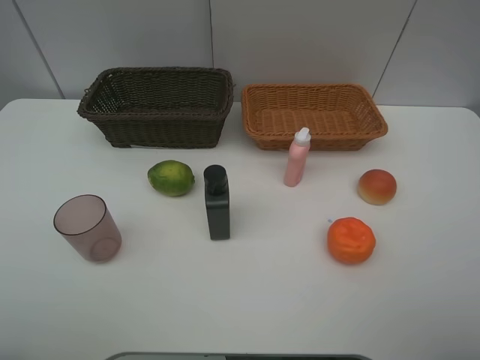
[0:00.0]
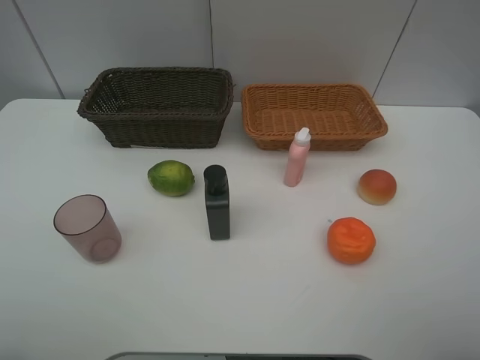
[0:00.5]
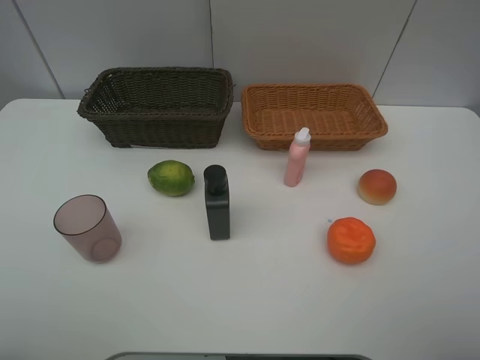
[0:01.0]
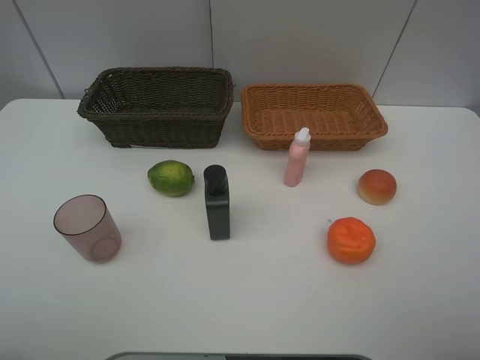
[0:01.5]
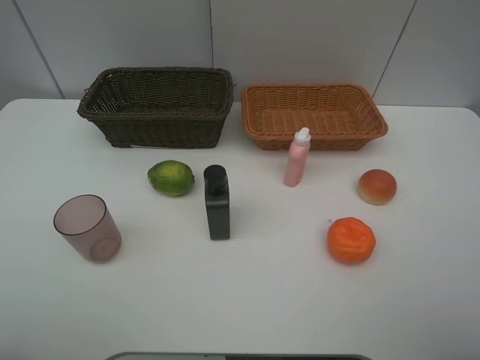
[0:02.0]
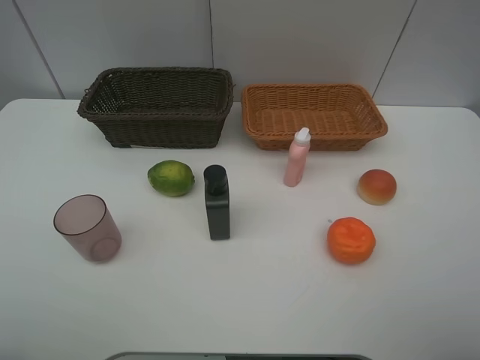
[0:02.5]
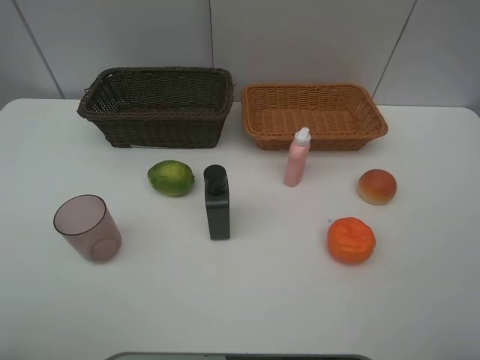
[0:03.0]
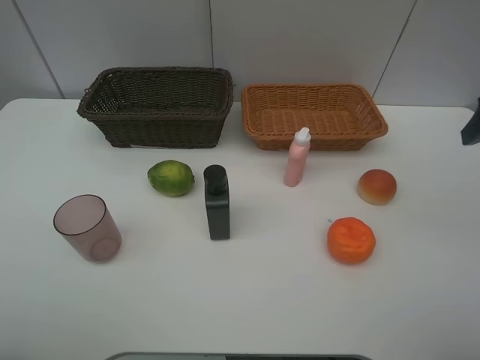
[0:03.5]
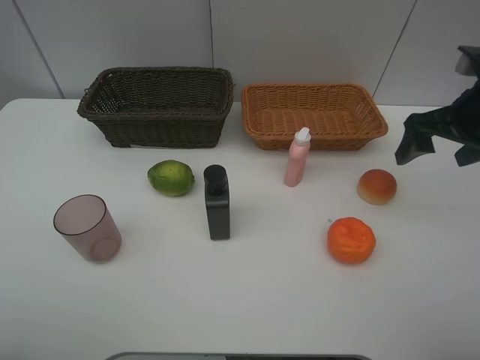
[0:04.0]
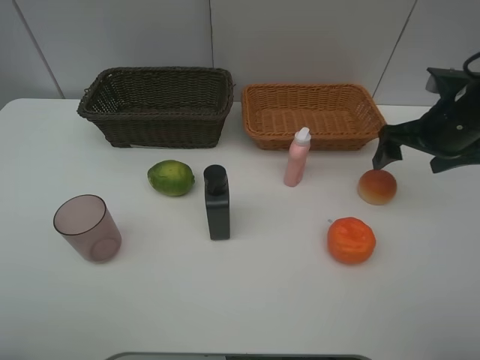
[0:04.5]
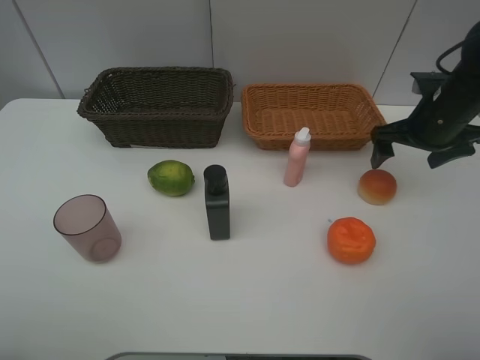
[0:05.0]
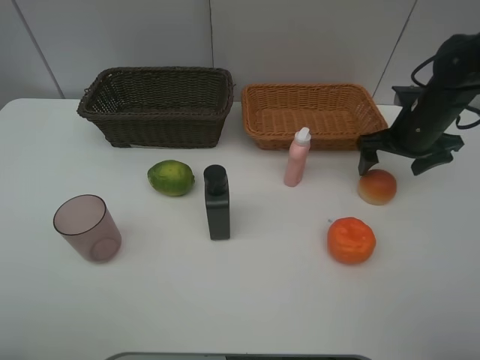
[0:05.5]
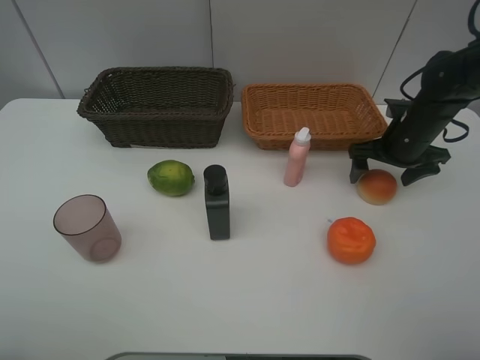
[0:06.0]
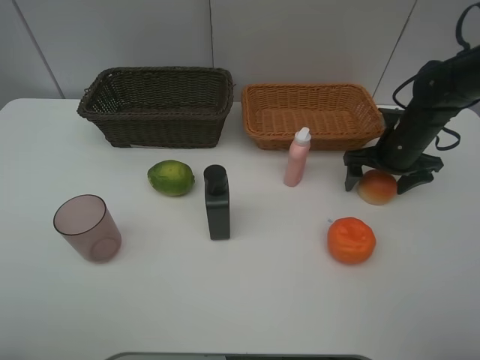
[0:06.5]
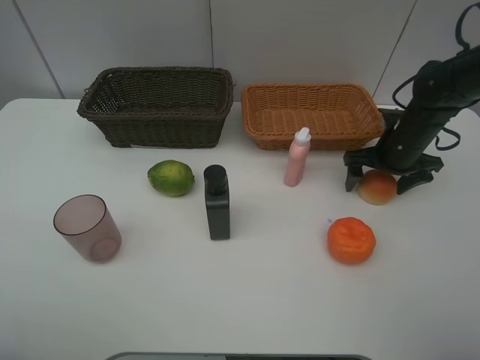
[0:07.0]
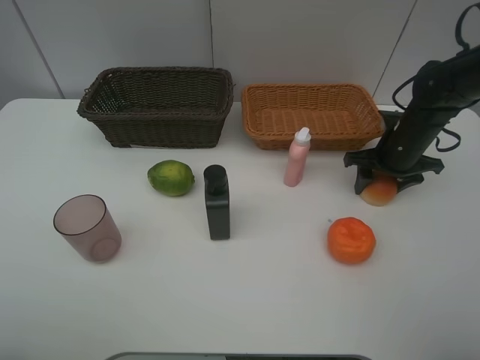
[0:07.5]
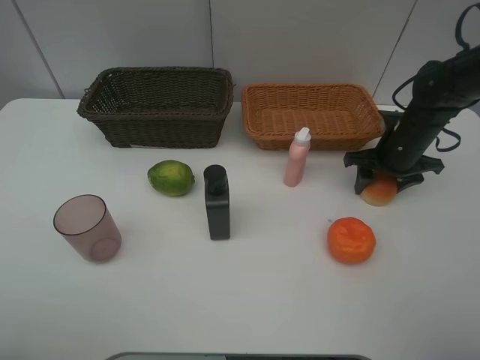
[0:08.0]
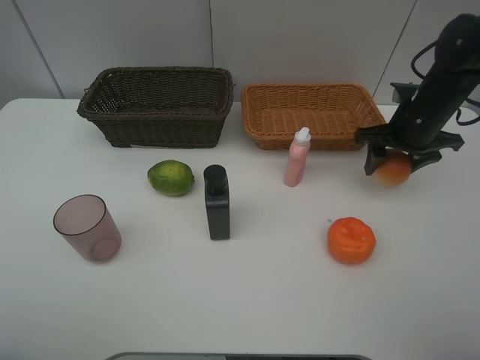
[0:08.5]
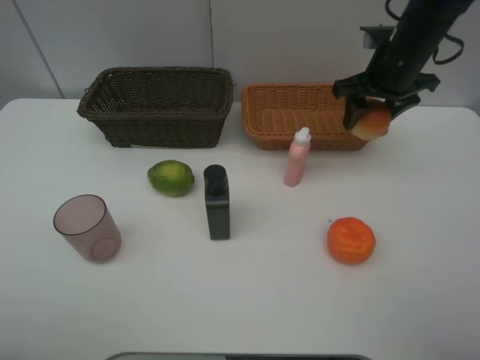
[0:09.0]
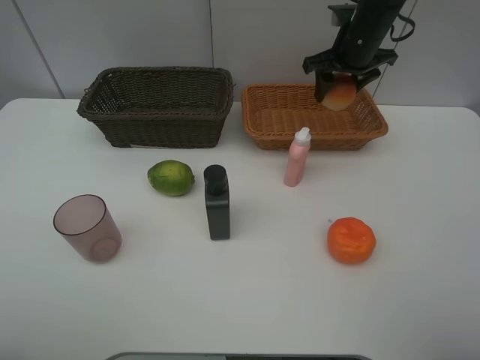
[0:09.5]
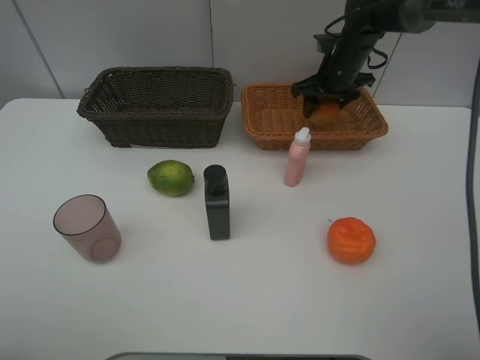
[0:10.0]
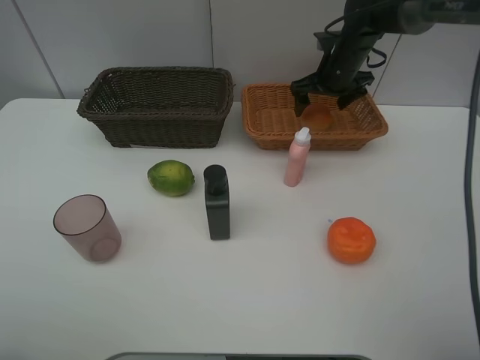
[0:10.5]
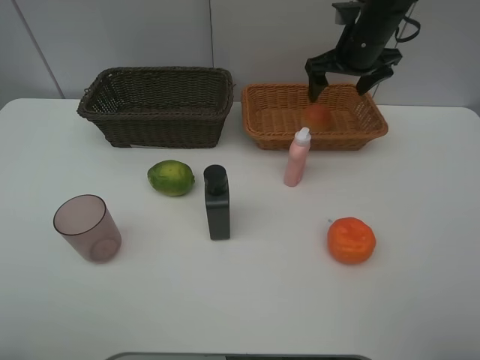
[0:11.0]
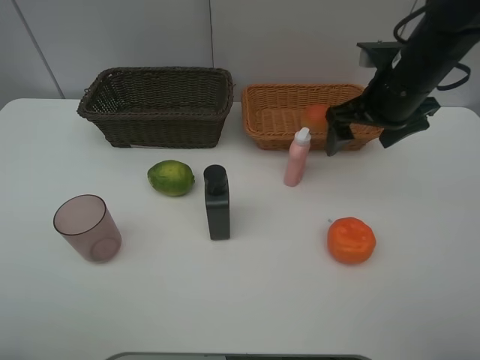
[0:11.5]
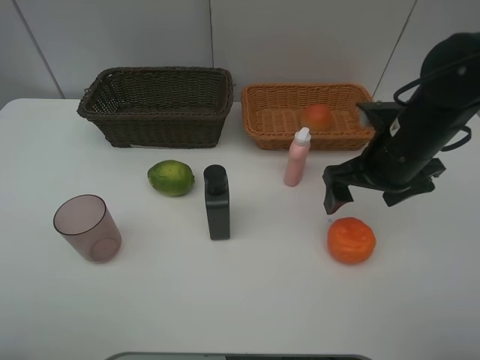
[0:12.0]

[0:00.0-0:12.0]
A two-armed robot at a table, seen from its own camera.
Task of the whole recording: place multiple objects separately in different baskets.
0:00.0 to 0:02.0: Neither gripper changes place.
0:02.0 to 0:04.0: The right gripper moves forward, about 25 cm.
0:04.0 to 0:06.0: The right gripper travels downward and forward by approximately 15 cm.
0:06.0 to 0:08.0: The right gripper closes its fingers.
0:08.0 to 0:10.0: The right gripper shifts roughly 15 cm forward, to the left and upward.
0:10.0 to 0:12.0: The right gripper goes some 25 cm backward, and opens up.

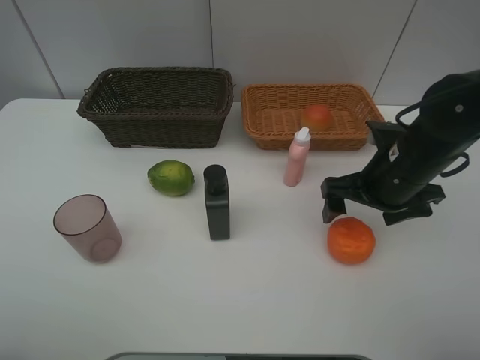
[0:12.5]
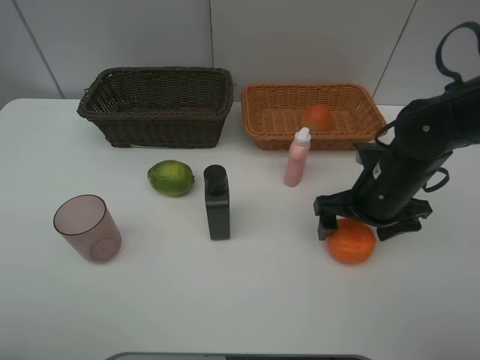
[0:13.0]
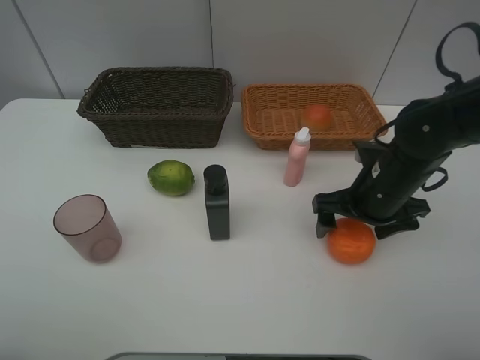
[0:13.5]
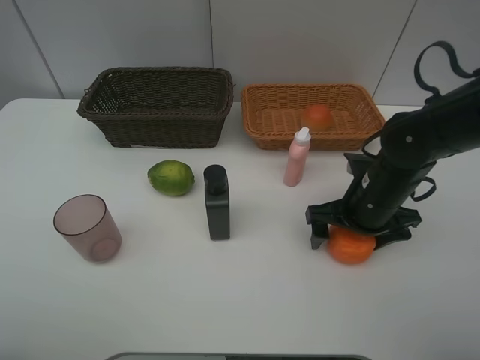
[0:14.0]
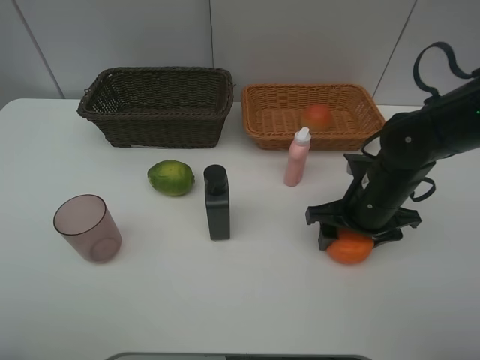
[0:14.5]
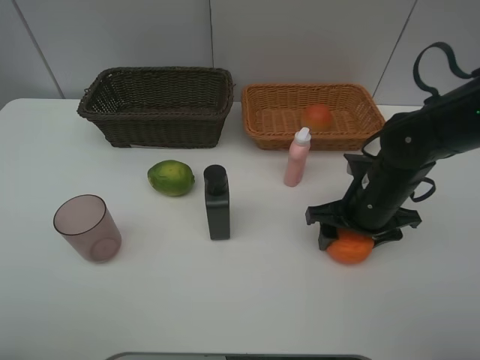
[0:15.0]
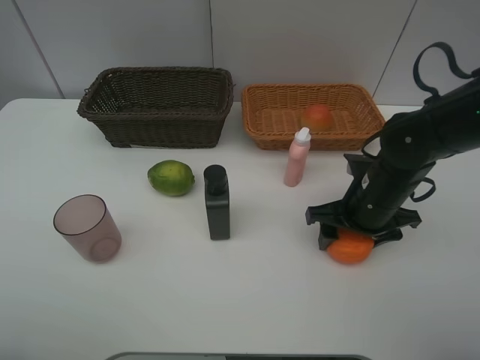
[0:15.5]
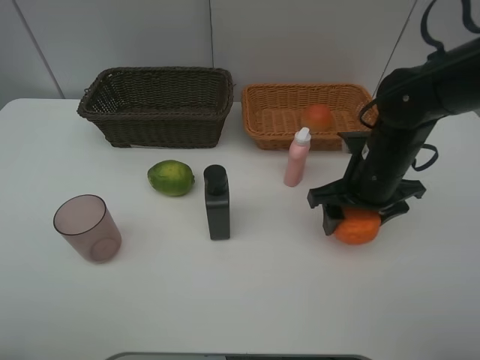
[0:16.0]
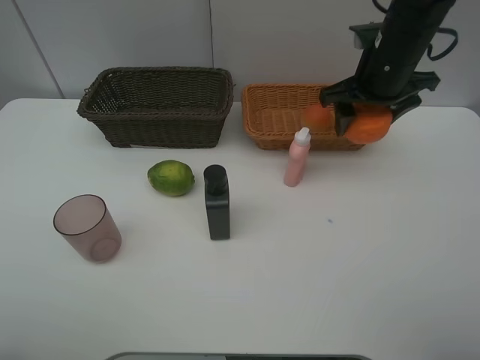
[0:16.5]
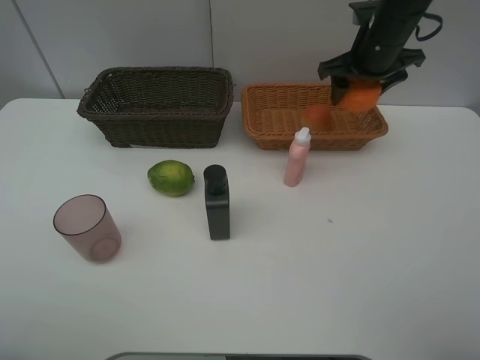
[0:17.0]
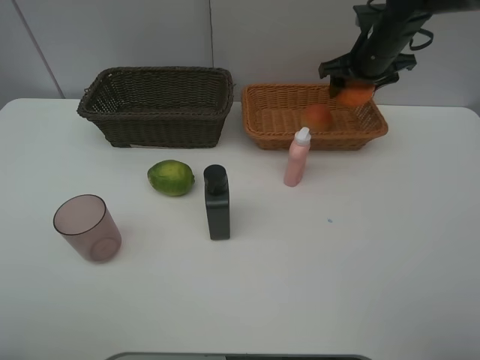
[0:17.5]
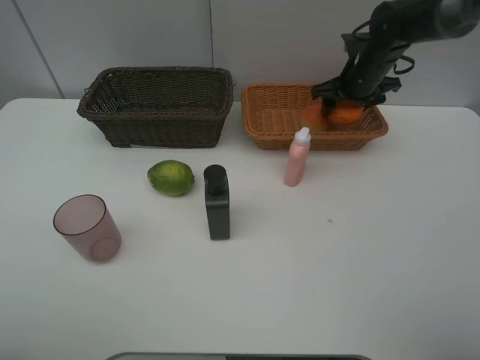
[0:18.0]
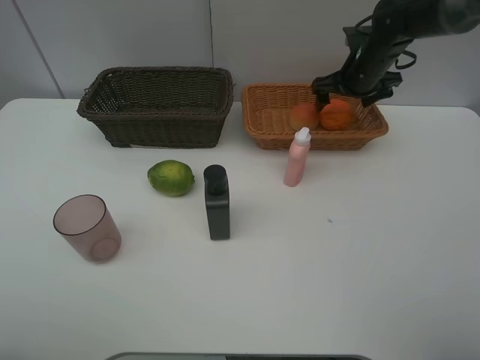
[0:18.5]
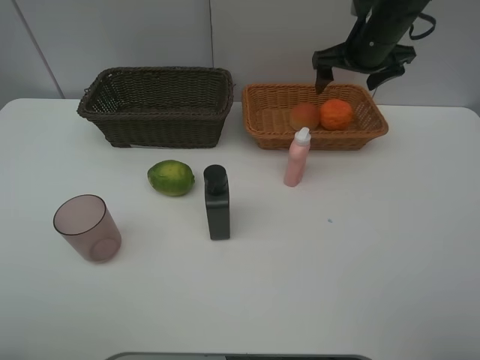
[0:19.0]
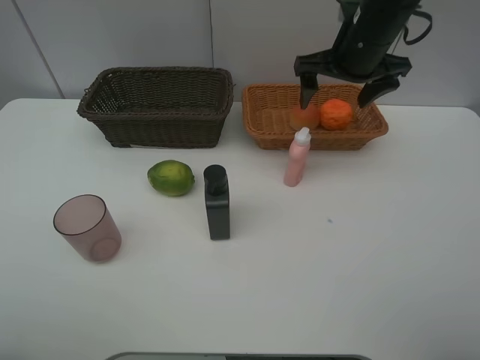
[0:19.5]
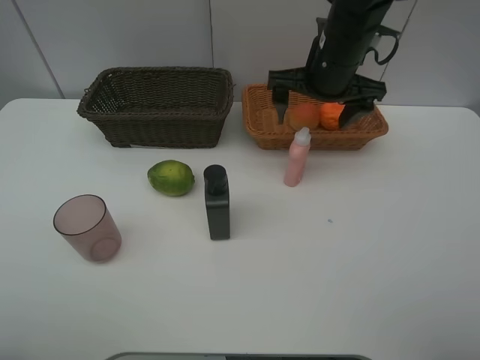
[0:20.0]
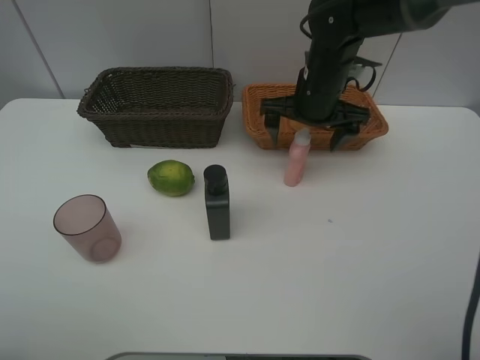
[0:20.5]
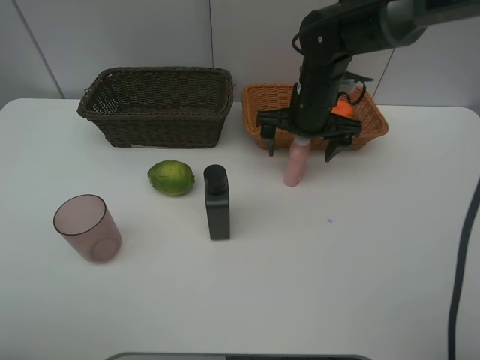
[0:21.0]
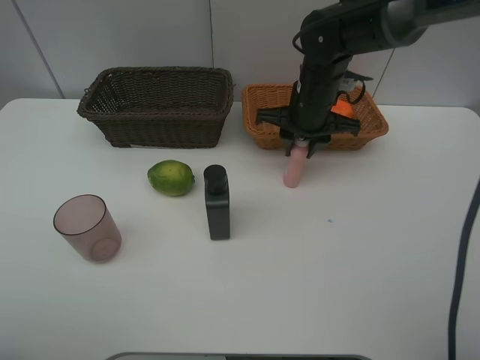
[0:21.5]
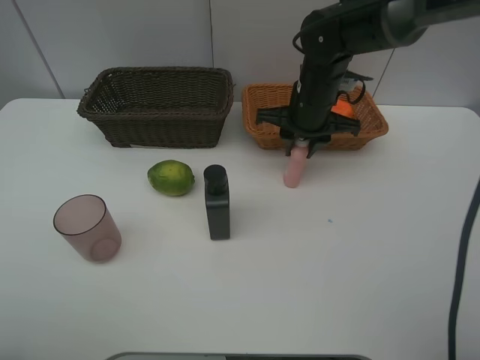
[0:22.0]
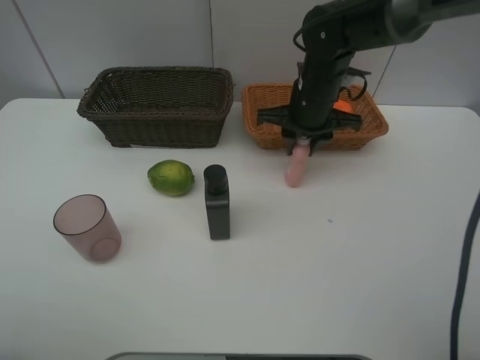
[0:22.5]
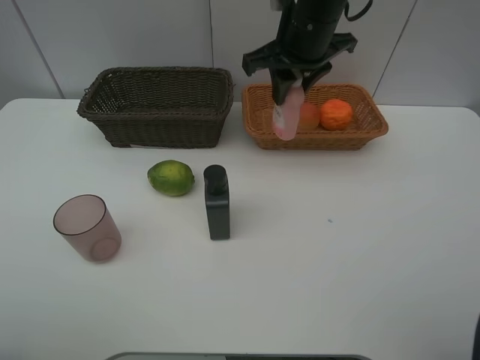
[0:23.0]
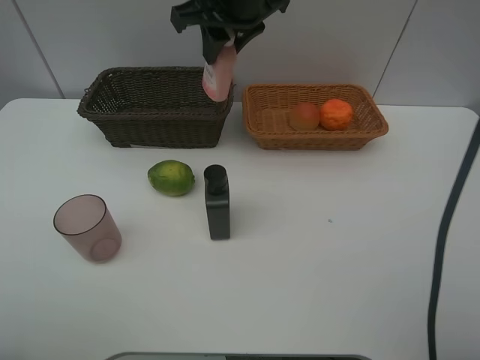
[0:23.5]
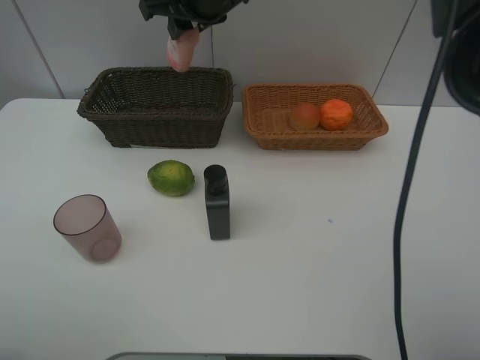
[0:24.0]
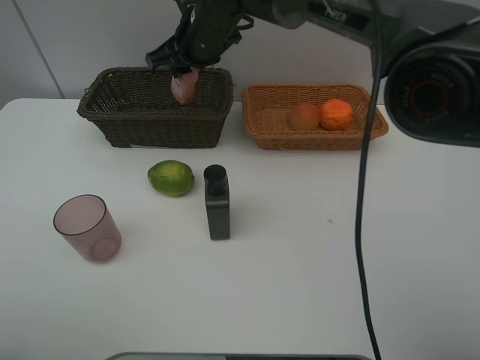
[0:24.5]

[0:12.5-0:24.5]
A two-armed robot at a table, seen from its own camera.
Task of the whole recording: place multiple objects separately in different baskets.
0:12.5 to 0:14.5: The right gripper closes its fingers.
0:14.5 to 0:16.5: The right gripper is displaced upward and forward by about 20 cm.
0:16.5 to 0:18.5: The right gripper goes approximately 10 cm forward and downward, and opens.
0:18.5 to 0:20.5: The right gripper is displaced to the left and backward by approximately 15 cm.
0:20.5 to 0:22.5: The right gripper closes up.
0:22.5 to 0:24.5: The right gripper goes approximately 15 cm to the left.

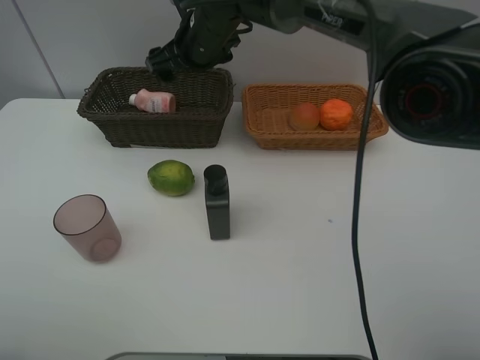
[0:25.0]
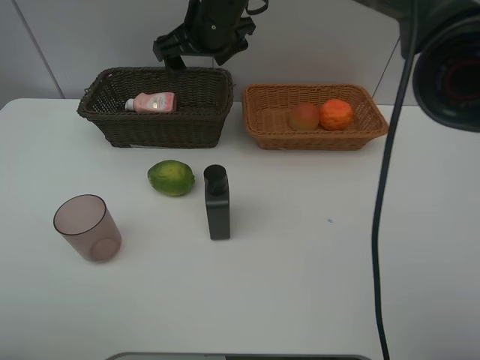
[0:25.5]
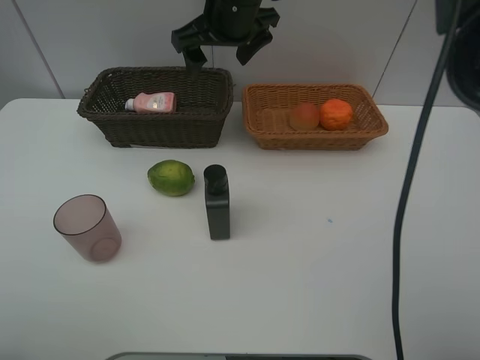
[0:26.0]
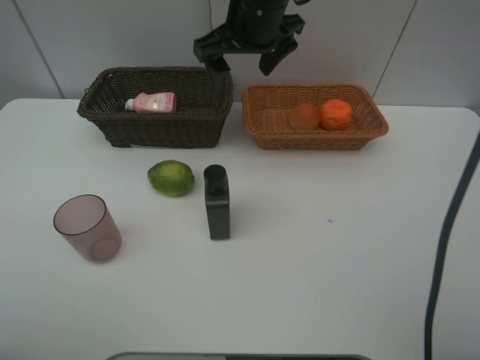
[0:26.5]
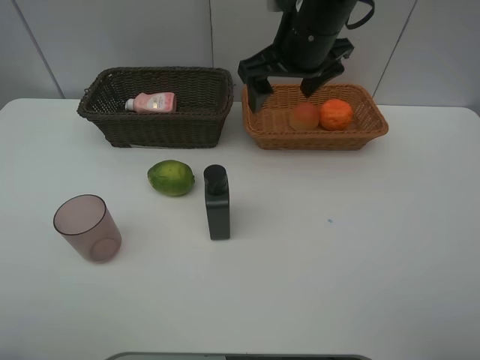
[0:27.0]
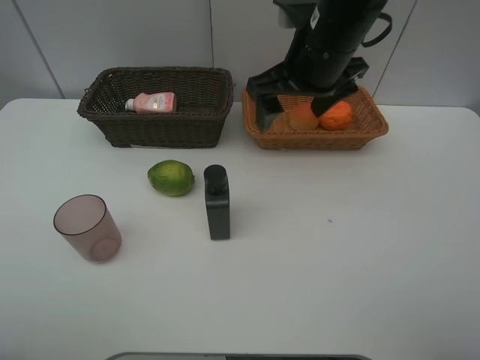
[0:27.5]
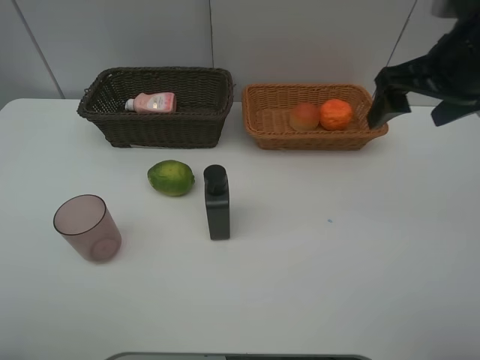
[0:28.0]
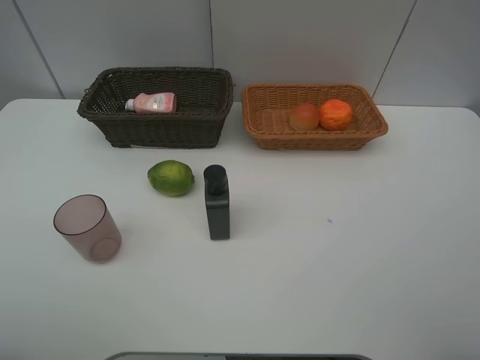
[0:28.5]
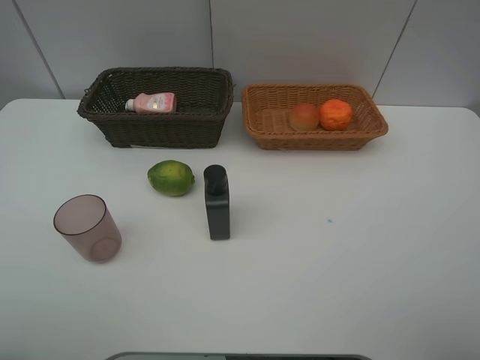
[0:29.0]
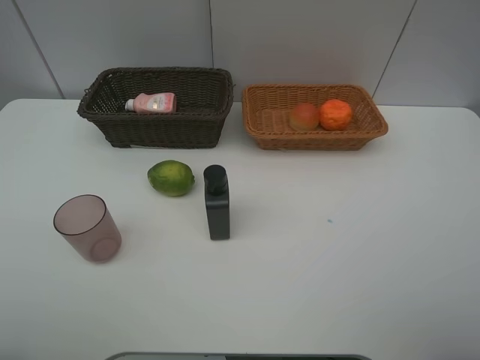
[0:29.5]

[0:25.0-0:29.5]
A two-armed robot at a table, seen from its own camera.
Task of the whole recording: place multiple objects separately in different baskets.
0:25.0 to 0:27.0: The right gripper travels to the right and backward by some 15 cm.
0:27.0 to 0:29.5: The right gripper goes some 40 cm backward and to the right.
